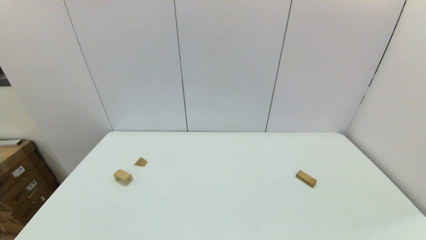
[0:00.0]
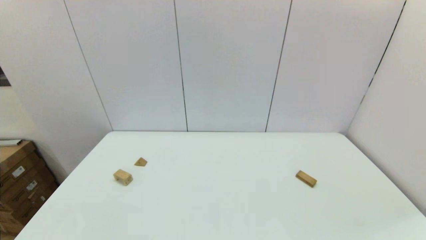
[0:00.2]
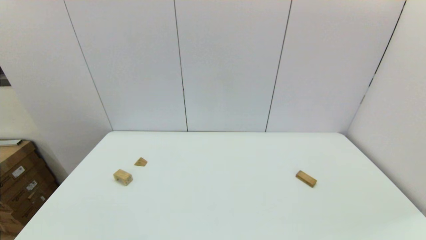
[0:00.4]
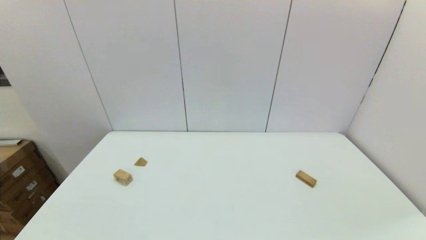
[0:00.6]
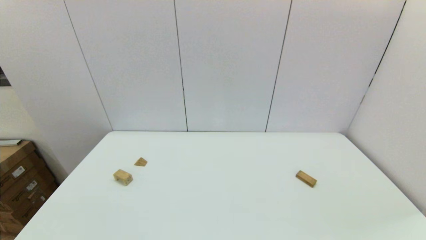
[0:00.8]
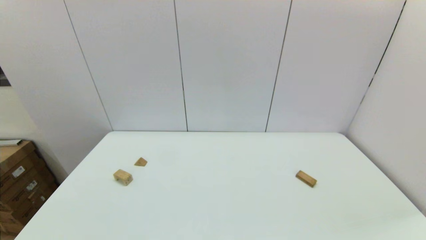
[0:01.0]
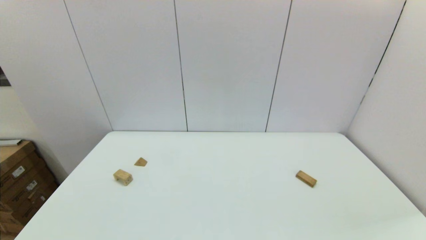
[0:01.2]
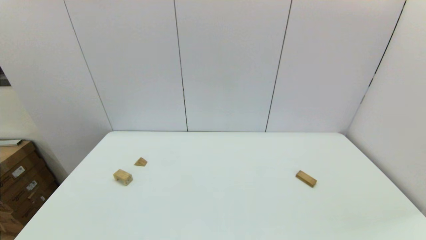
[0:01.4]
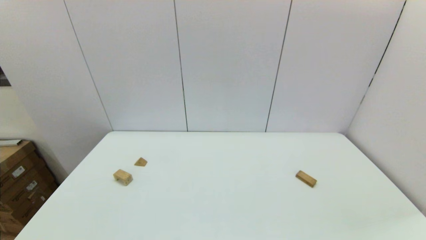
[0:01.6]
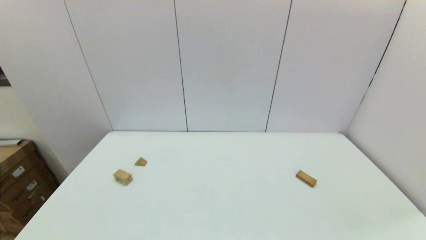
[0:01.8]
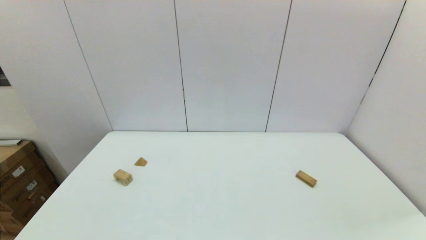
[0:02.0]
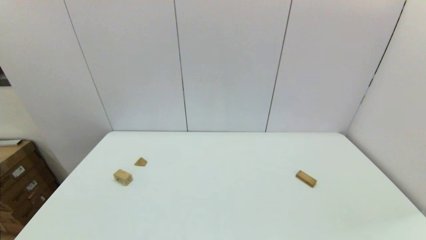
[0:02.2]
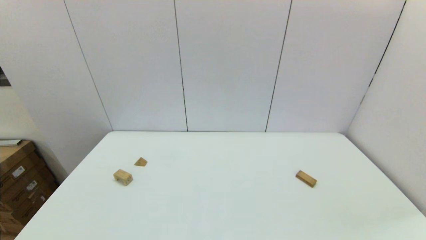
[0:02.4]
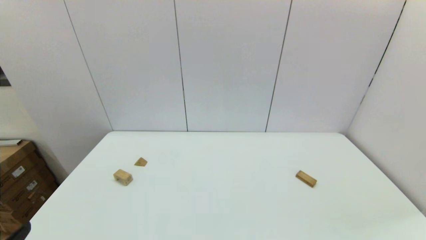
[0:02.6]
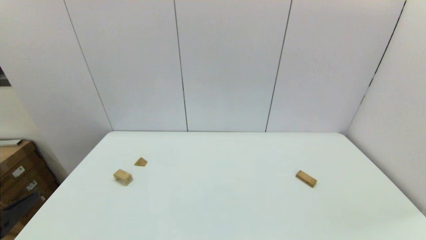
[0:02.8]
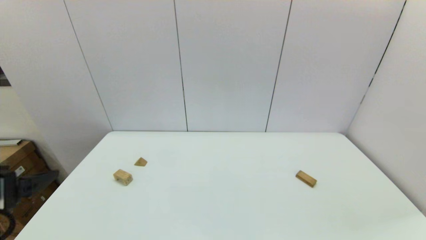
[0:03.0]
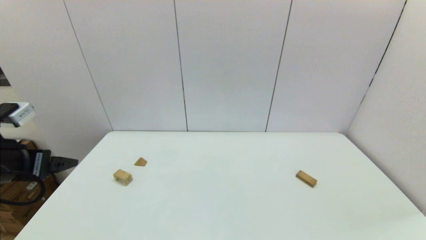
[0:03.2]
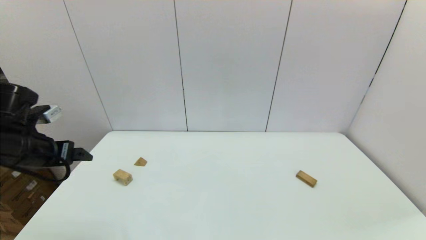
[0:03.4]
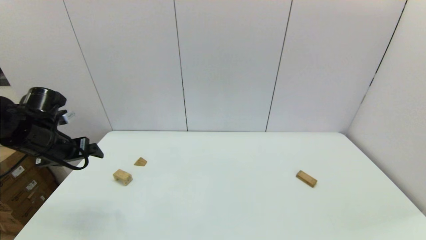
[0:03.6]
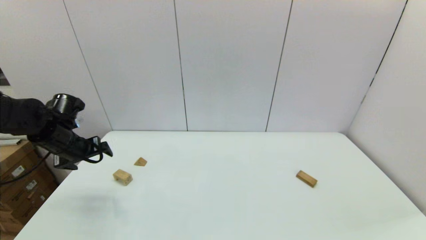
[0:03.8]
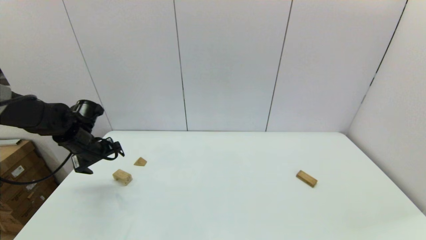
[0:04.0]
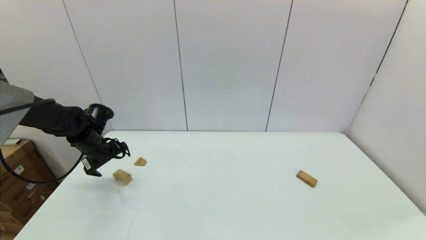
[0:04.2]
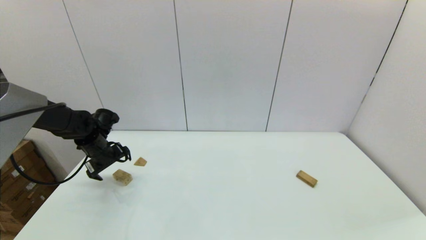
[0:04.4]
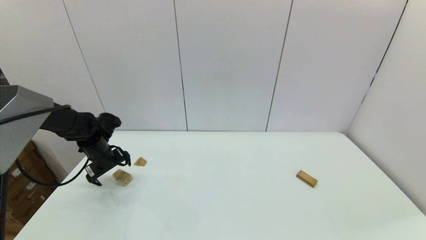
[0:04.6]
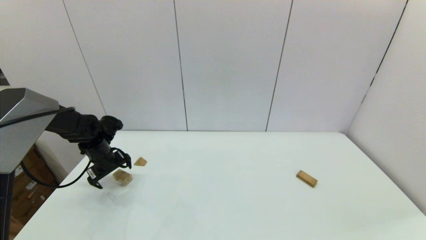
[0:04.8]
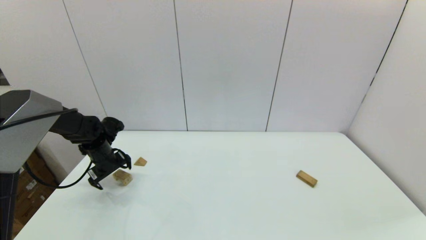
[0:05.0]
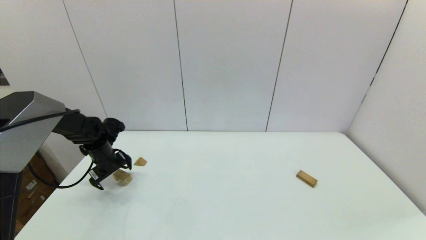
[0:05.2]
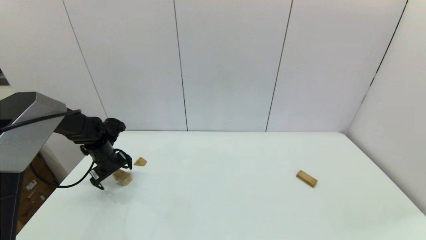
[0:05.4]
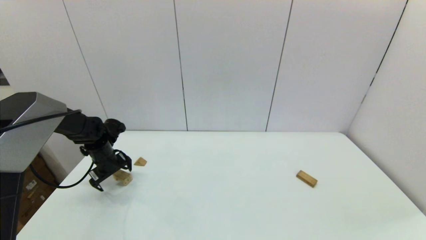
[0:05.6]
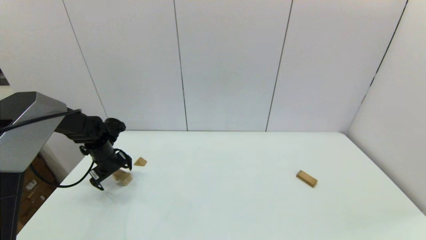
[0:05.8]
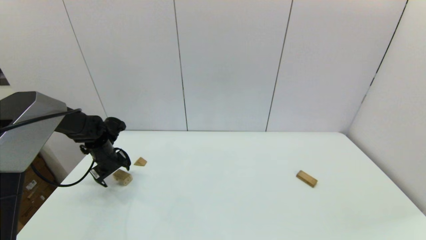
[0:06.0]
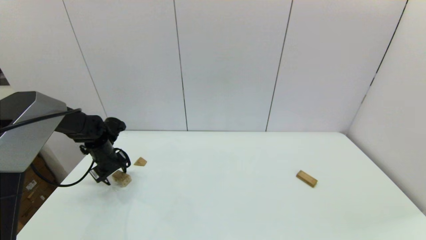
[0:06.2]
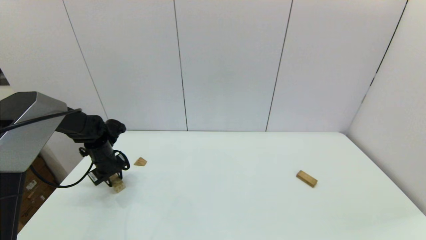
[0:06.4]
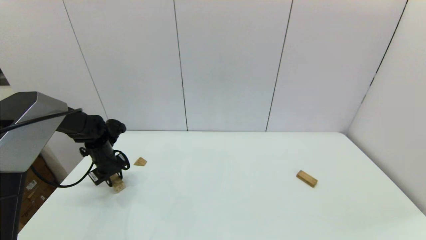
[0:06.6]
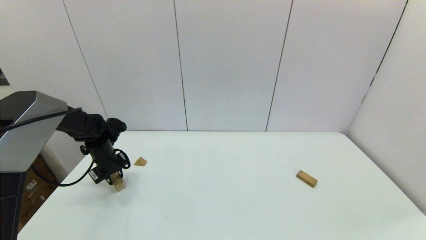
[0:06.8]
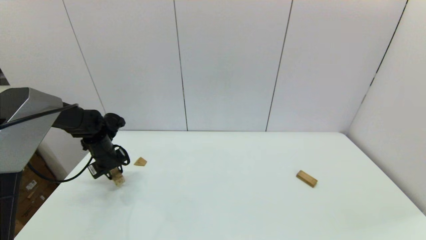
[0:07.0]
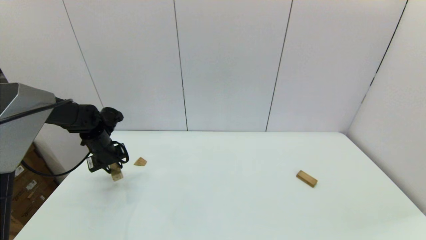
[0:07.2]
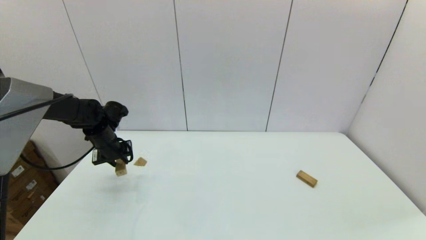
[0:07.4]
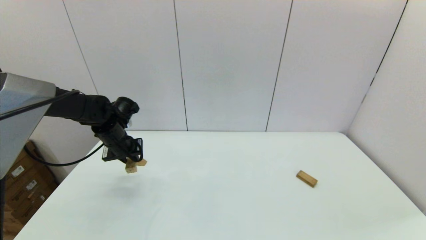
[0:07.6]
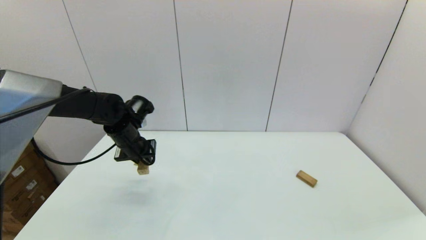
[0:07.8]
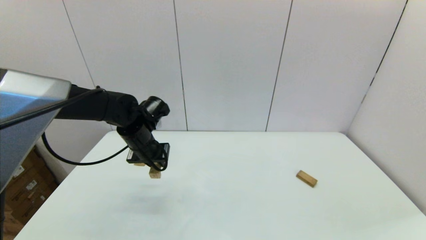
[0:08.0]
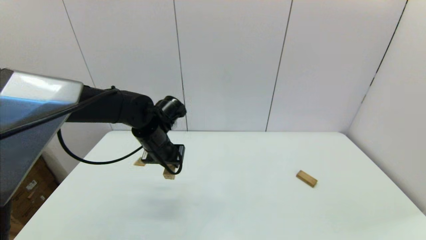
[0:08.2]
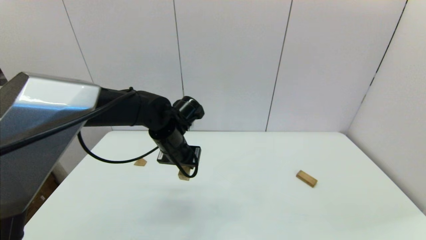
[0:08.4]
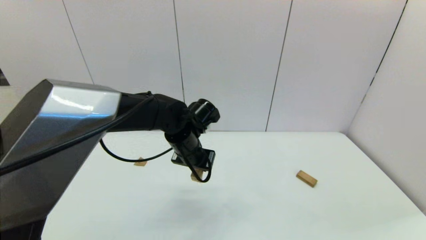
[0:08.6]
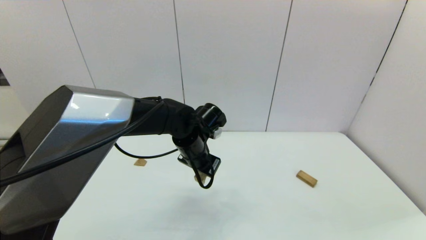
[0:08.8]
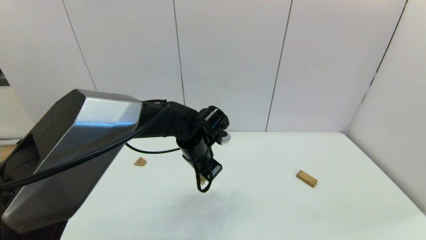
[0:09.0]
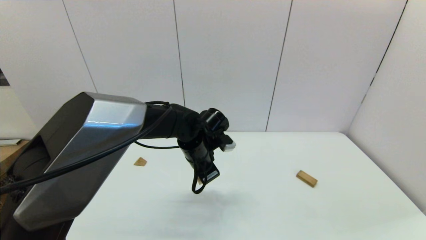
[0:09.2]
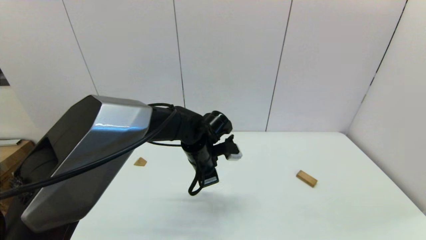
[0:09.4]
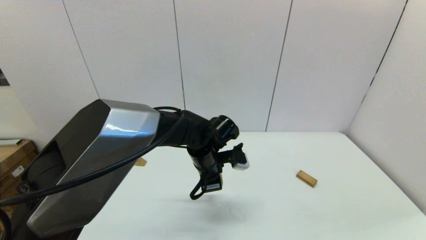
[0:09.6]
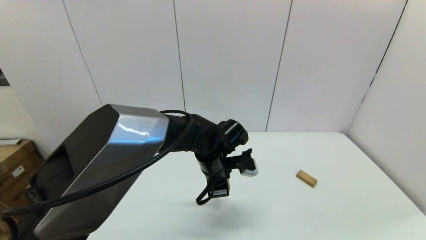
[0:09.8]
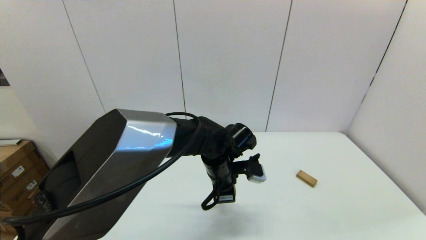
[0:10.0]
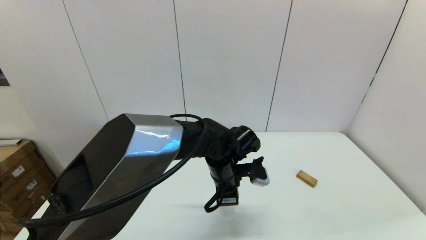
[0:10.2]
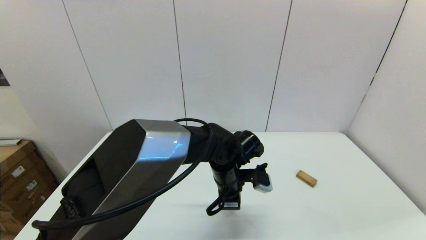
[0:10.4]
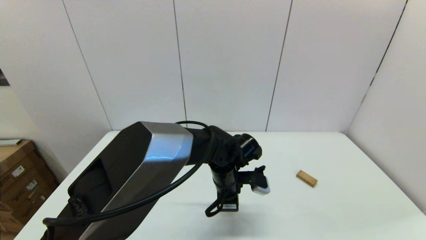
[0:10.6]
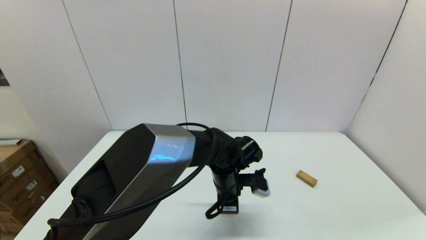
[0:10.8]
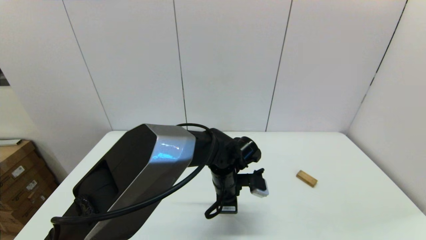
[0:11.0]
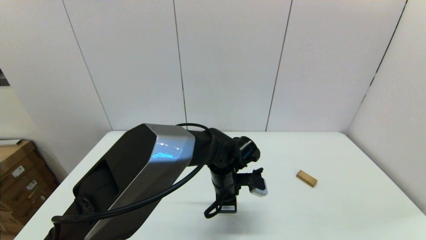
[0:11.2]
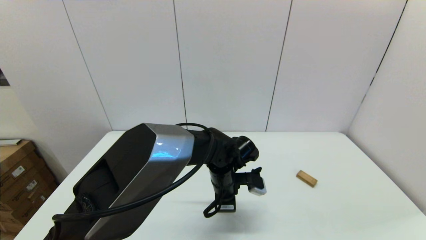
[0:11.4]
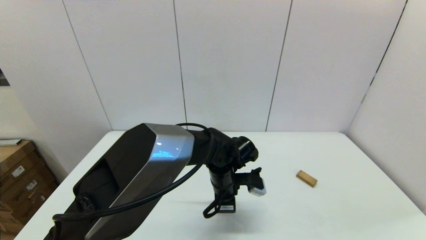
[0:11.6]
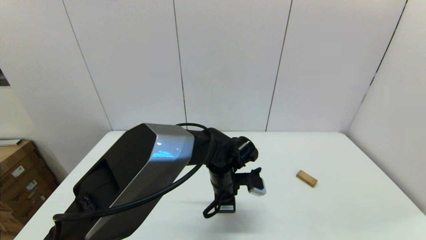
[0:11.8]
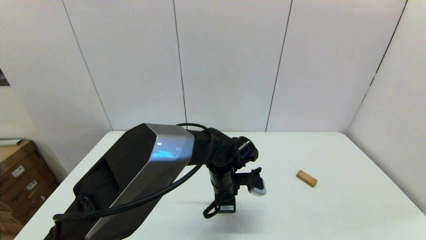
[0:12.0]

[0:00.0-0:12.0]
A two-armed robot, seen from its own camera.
Task of the whole recording: place the arched building blocks in the center of the table, set up the rectangular building blocks, and then set up the triangular building blocks.
Step, 0:02.6 to 0:06.4: Grasp the arch-shaped block with the left gripper.
0:00.0 to 0:01.6: Both grippers stay put.
0:03.0 to 0:04.4: The left gripper is displaced forward and downward by some 30 cm.
0:04.4 to 0:06.0: The grippers stay close to where they were, moving slightly.
0:06.0 to 0:07.6: The left gripper travels upward and to the right by about 10 cm, and closes.
0:07.6 to 0:09.0: The left gripper moves to the right, some 20 cm.
0:09.0 to 0:10.4: The left gripper shifts approximately 5 cm to the right.
0:10.4 to 0:12.0: The grippers move only a little.

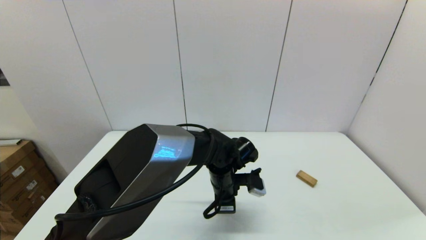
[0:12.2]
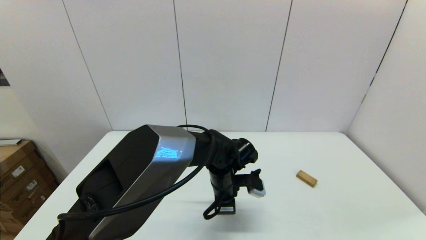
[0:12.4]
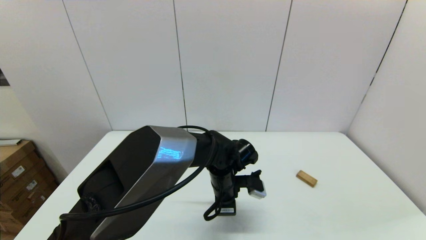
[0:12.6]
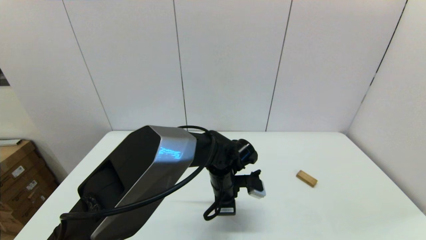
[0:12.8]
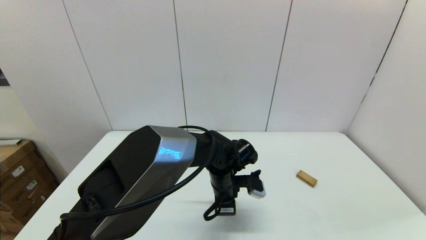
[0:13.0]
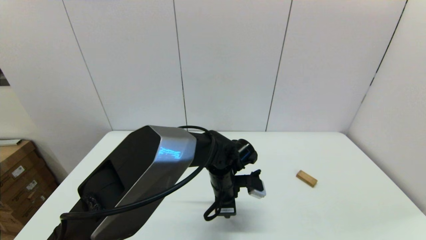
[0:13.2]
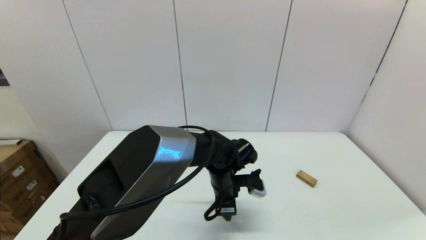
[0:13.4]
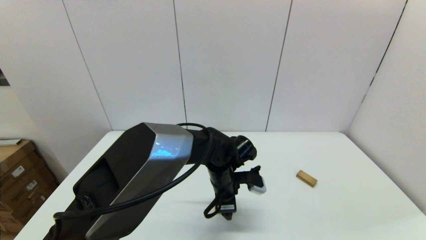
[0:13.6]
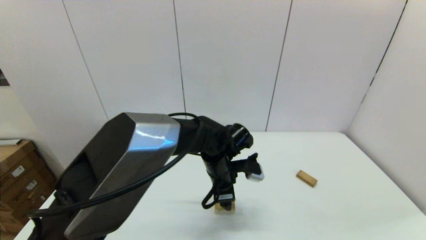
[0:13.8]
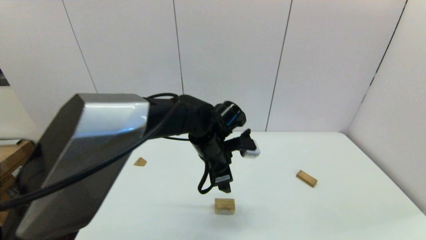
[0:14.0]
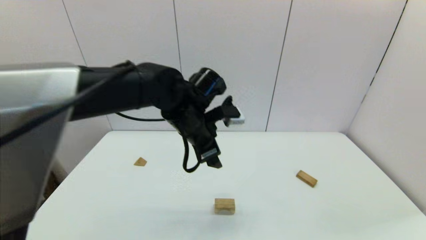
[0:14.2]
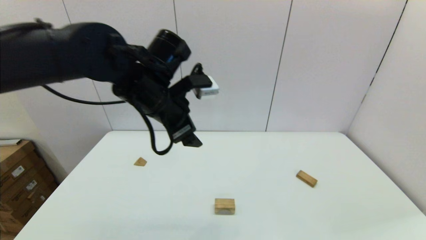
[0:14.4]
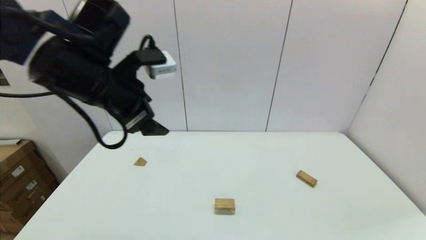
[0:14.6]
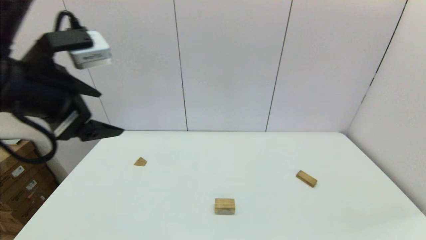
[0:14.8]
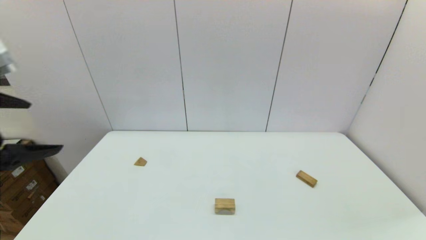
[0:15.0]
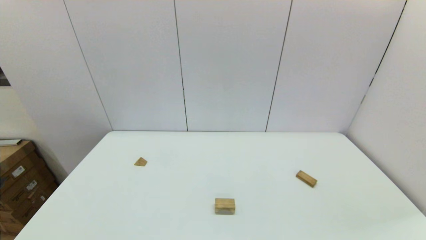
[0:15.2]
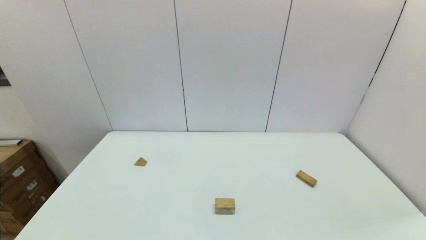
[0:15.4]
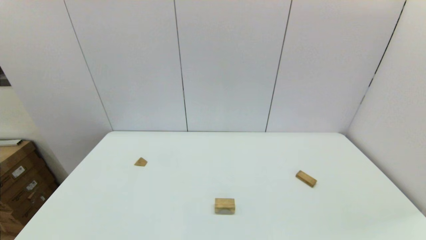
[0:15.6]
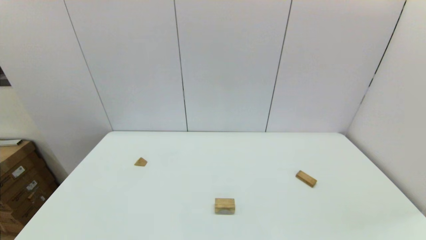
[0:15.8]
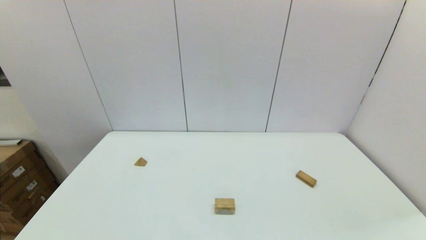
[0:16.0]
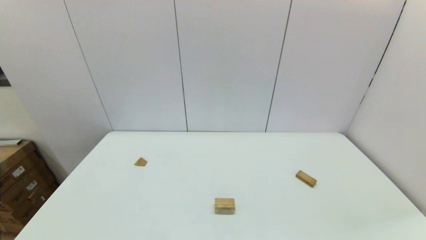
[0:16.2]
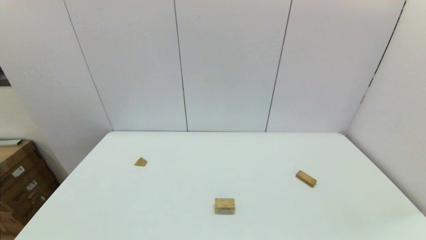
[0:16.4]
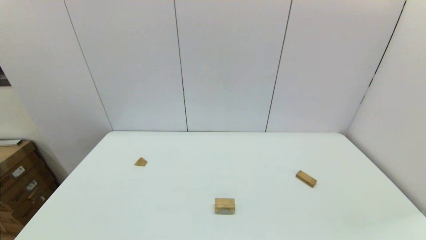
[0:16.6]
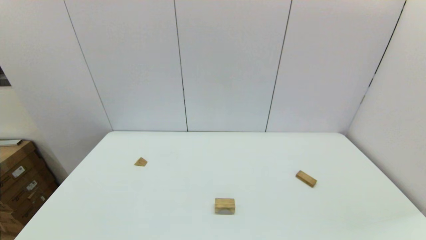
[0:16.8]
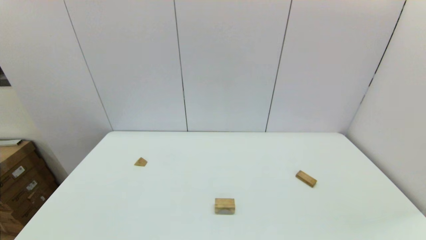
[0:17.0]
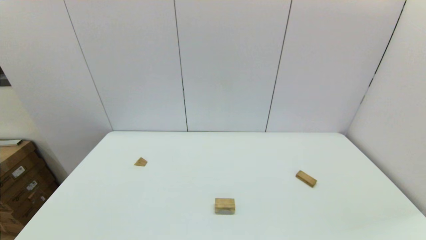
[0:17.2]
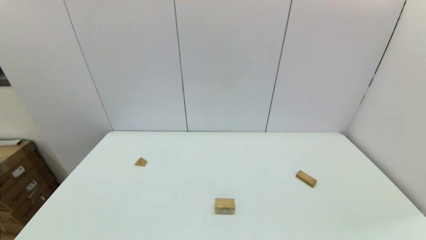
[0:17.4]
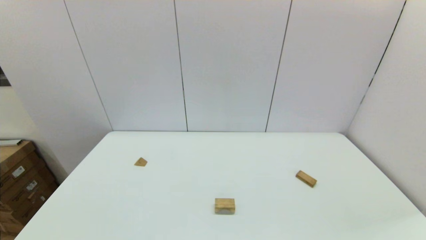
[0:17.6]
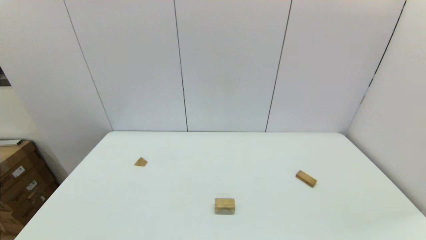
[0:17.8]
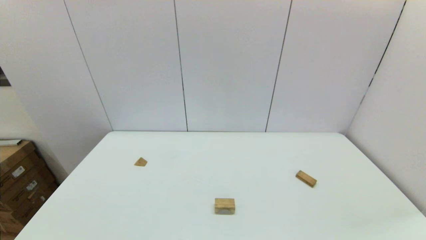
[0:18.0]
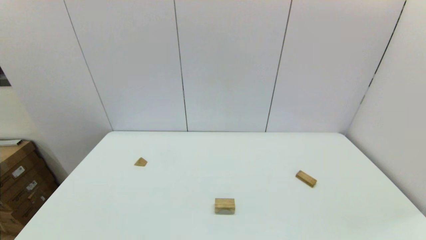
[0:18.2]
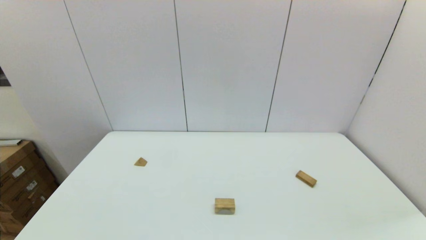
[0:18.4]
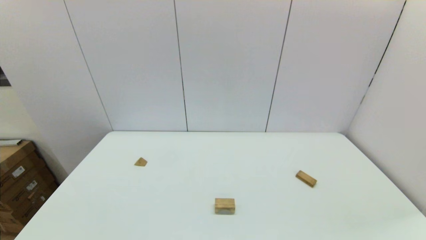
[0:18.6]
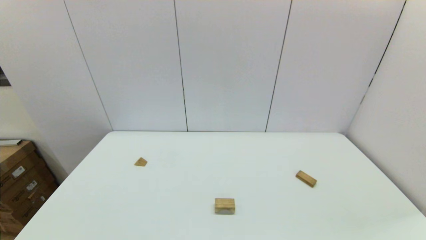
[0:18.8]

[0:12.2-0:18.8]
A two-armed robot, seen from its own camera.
Task of the whole recording: place the arched building blocks in the center of the table, set up the rectangular building blocks, and then set up the triangular building blocks.
0:12.2 to 0:13.8: The left gripper opens up.
0:13.8 to 0:15.4: The left gripper goes some 50 cm to the left, backward and upward.
